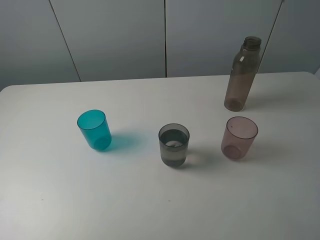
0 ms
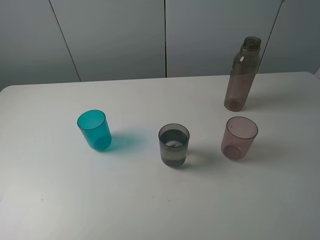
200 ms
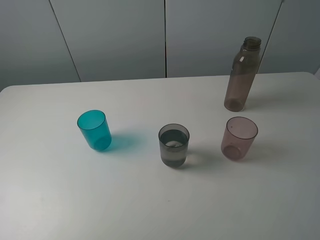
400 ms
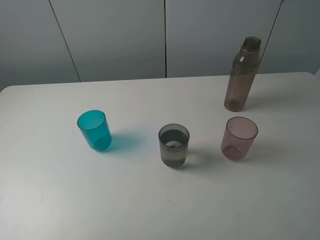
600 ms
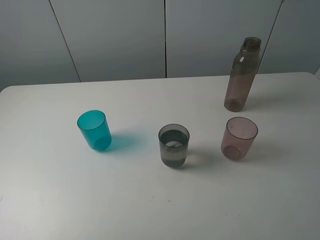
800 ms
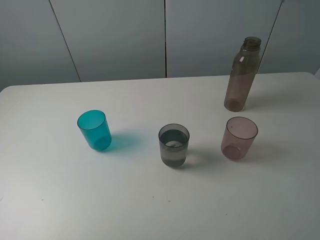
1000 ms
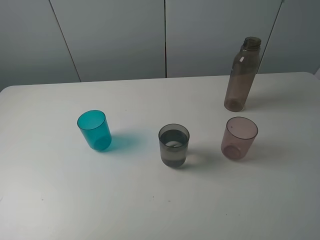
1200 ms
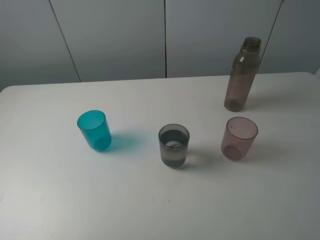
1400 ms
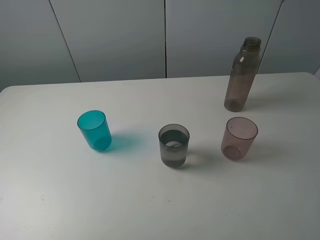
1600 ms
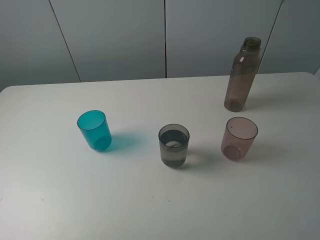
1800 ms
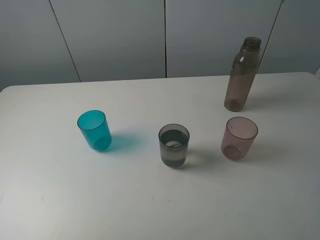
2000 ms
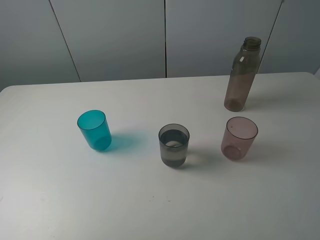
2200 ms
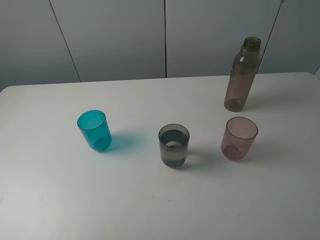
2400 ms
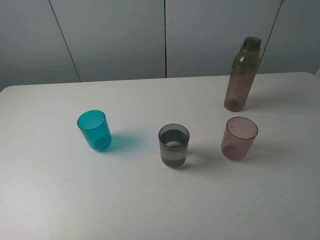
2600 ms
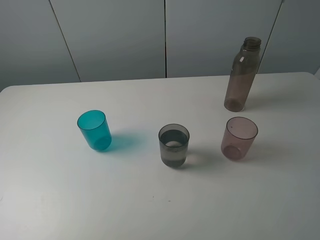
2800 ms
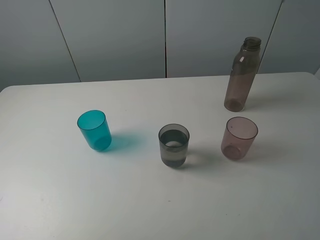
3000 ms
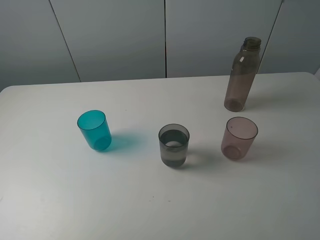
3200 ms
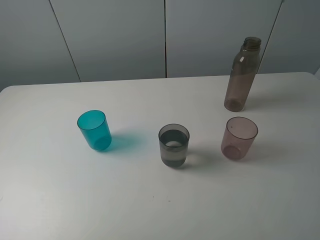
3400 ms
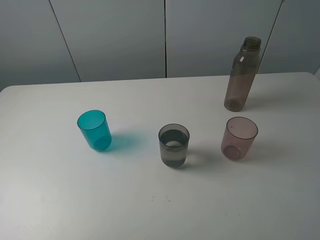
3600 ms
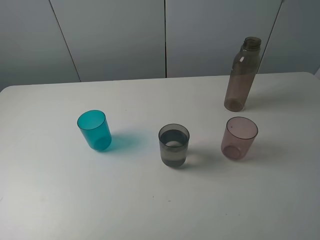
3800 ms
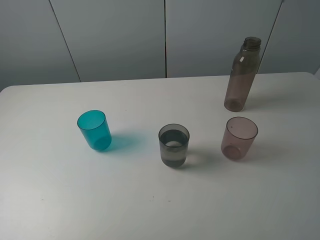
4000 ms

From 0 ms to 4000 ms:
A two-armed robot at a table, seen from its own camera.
Task of the whole recording: pick up the bottle filled with water and pour water into the middle cup of the three cups.
From 2600 ms to 4000 ms: The two grippers keep their place.
